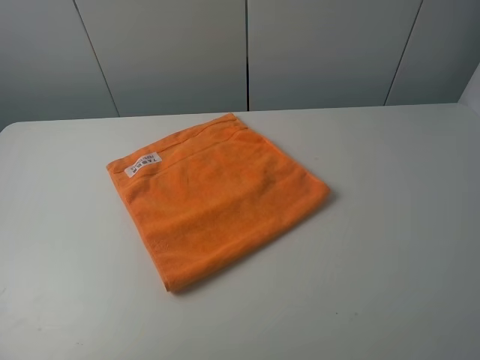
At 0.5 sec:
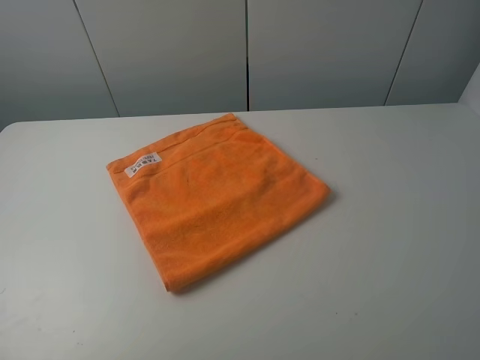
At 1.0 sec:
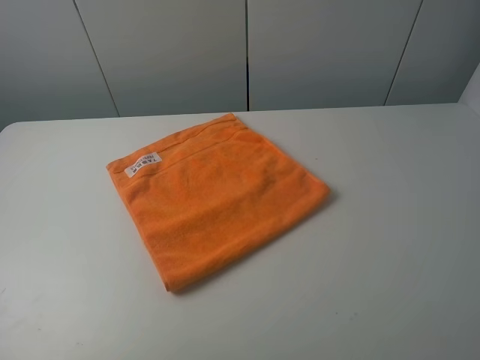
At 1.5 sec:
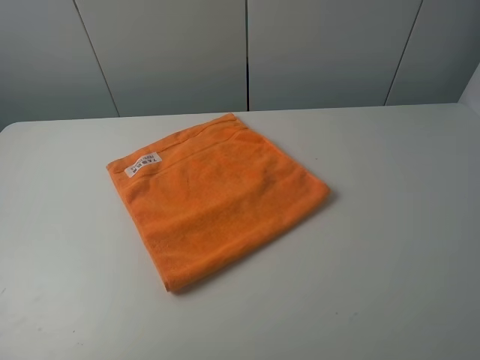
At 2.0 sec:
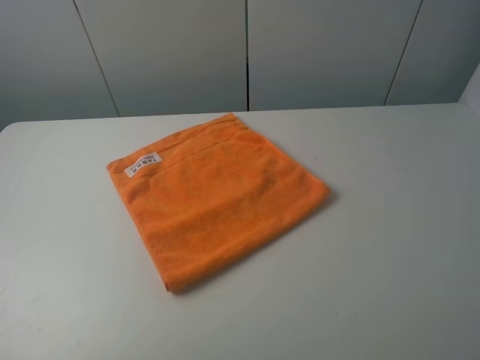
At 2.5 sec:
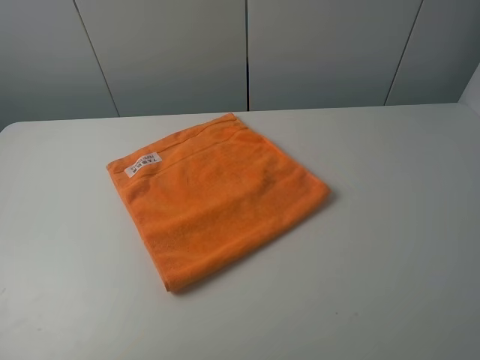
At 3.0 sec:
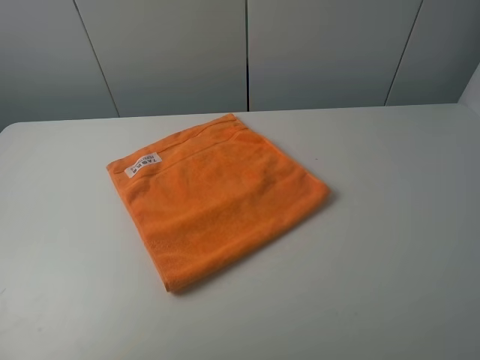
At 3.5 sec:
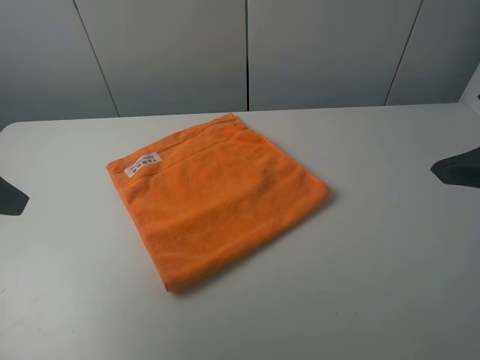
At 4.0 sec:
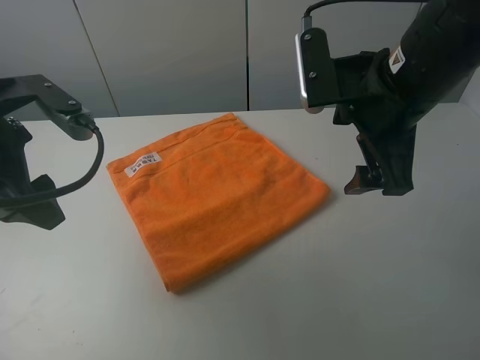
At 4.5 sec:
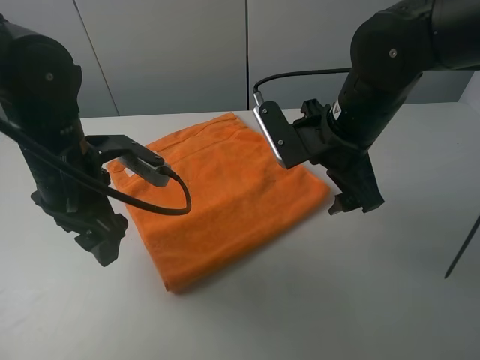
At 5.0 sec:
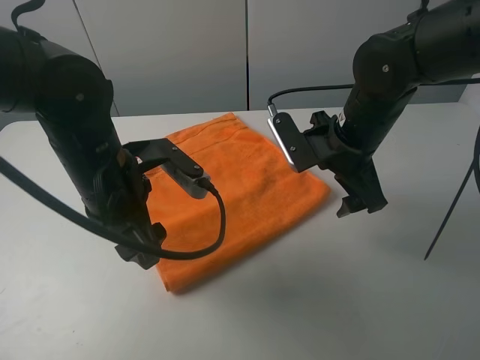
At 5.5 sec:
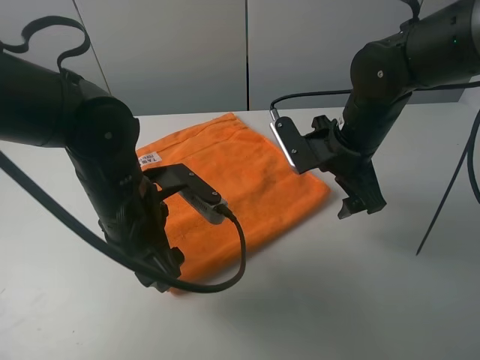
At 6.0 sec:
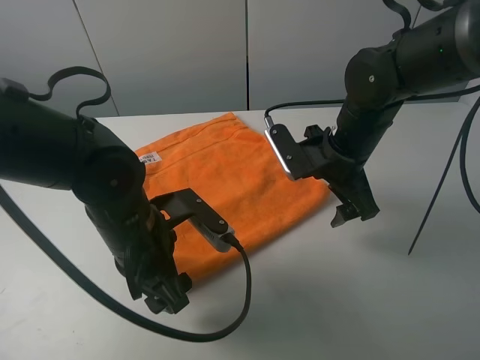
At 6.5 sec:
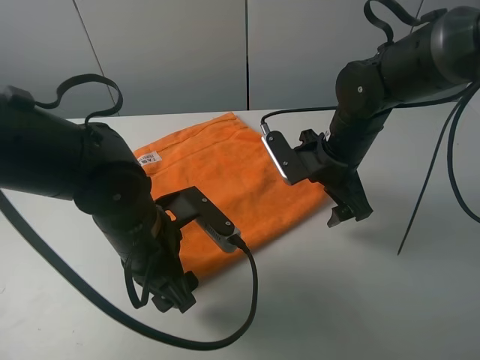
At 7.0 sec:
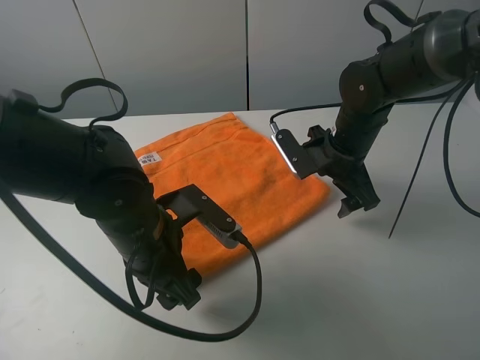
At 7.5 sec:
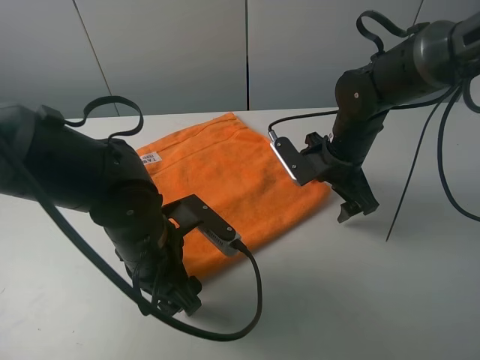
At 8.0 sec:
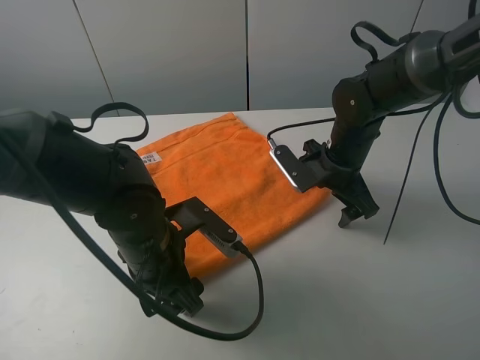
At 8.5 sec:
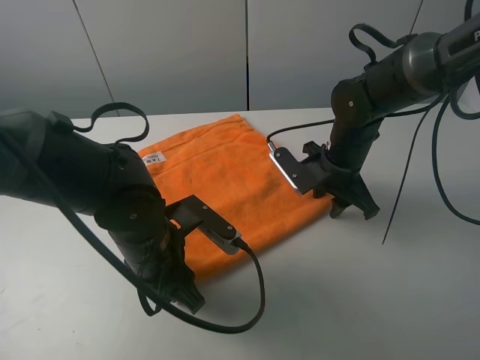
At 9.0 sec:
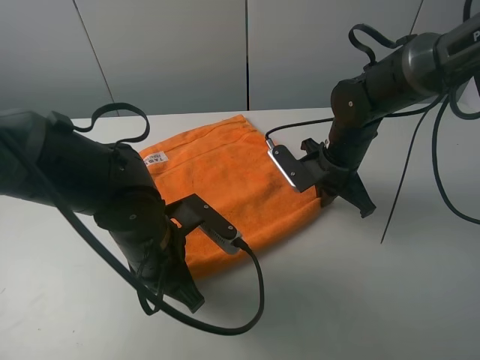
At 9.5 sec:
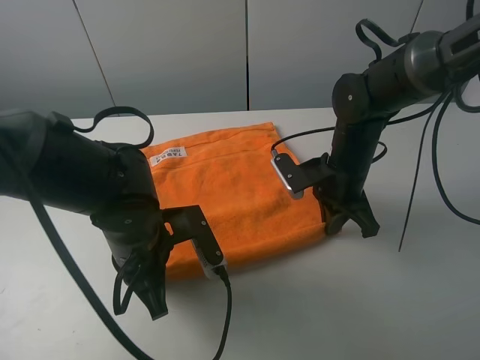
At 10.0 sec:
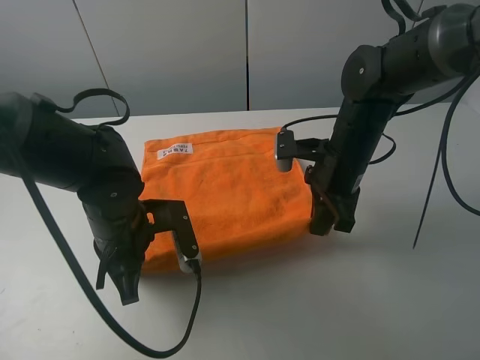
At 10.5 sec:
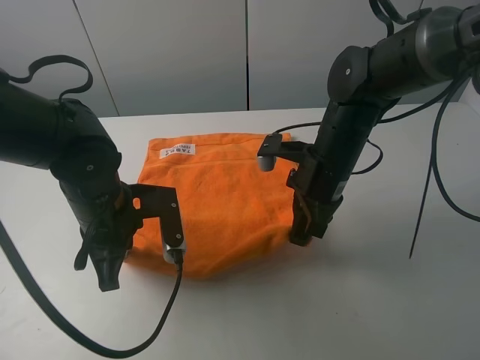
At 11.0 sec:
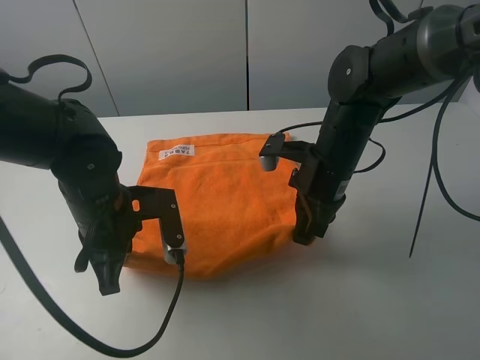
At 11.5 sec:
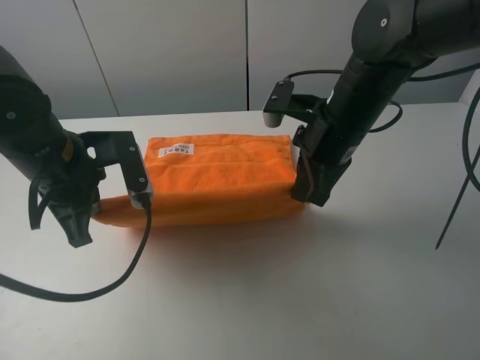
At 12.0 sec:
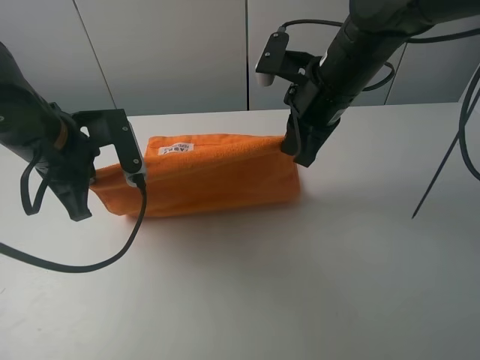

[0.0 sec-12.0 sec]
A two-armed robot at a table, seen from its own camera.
Task of the whole recording: fold the towels on the table.
Step, 0.0 sec to 9.0 sec: Grasp the orange towel with the left gripper.
0.0 sec to 2.0 sec: Both grippers stay about where they are.
2.0 sec to 4.0 sec: The left gripper is displaced forward by roughly 20 cm. The right gripper travels forward and to the left by some 30 cm.
4.0 sec to 6.0 sec: The right gripper goes some 10 cm downward and forward. Meanwhile the left gripper heads downward and to the right, covering some 20 cm.
6.0 sec to 8.0 sec: The right gripper ends up some 5 cm from where it was.
8.0 sec to 10.0 sec: The left gripper ends up roughly 5 cm from where it was, and closes up; the right gripper ends up roughly 5 cm from where it was, and closes up.
10.0 sec to 12.0 sec: The left gripper travels upward and to the left by some 10 cm. The right gripper heads upward, covering about 10 cm.

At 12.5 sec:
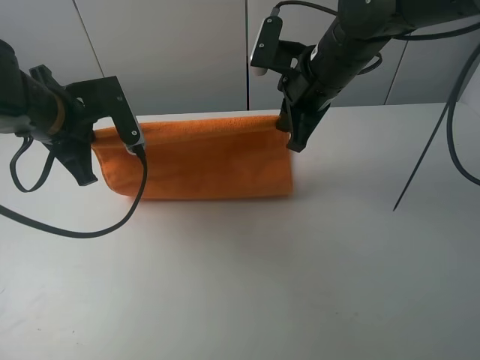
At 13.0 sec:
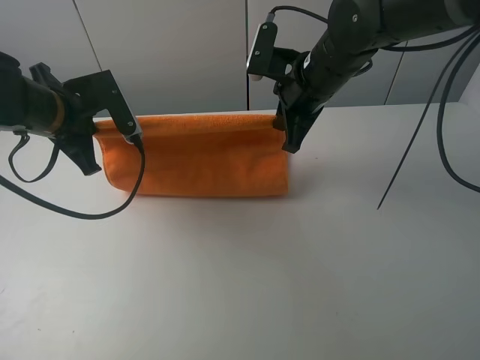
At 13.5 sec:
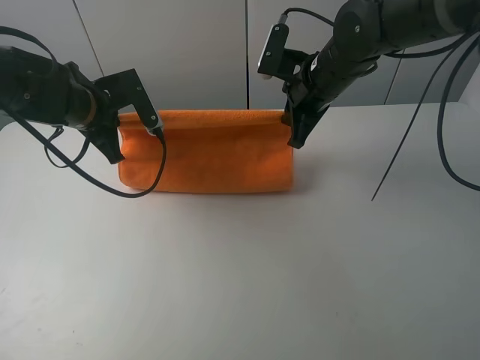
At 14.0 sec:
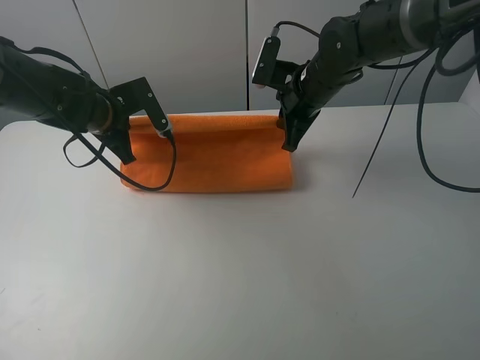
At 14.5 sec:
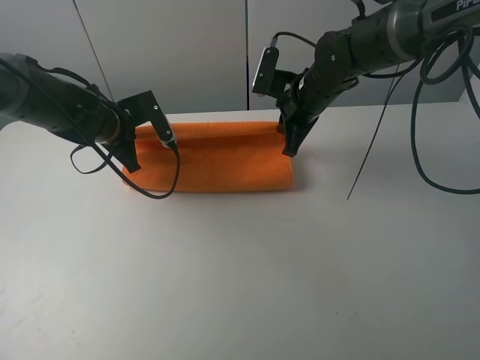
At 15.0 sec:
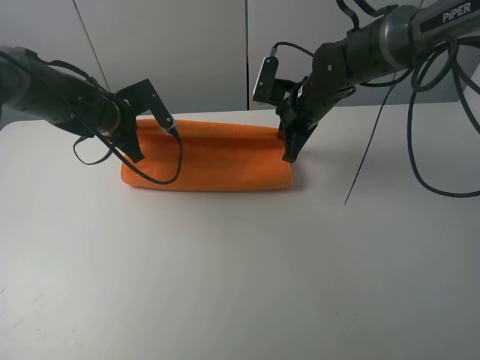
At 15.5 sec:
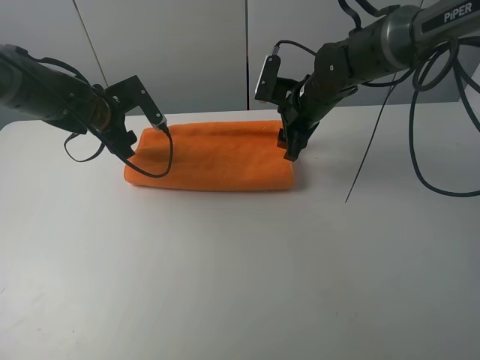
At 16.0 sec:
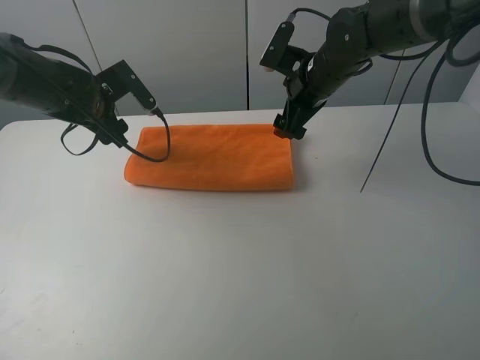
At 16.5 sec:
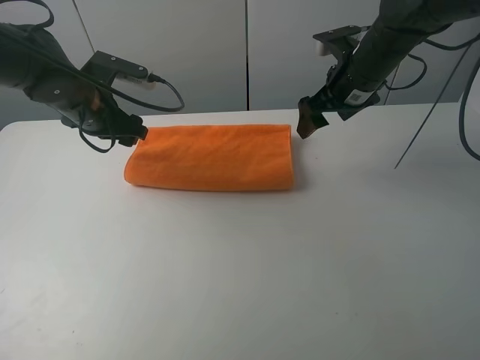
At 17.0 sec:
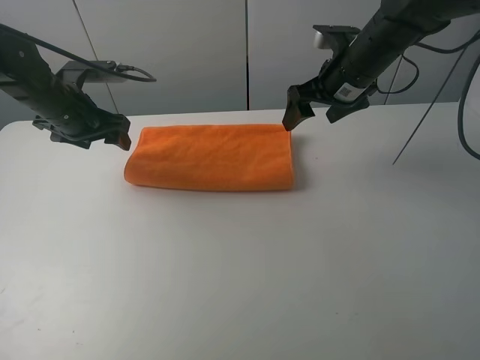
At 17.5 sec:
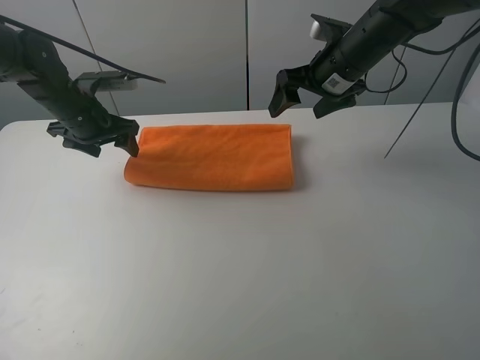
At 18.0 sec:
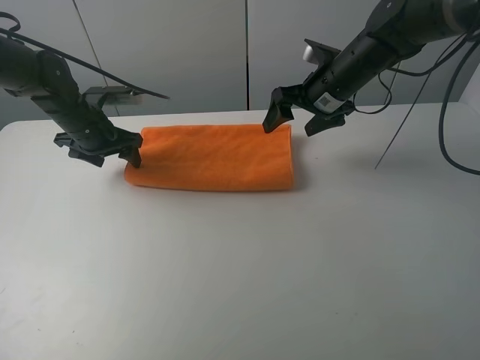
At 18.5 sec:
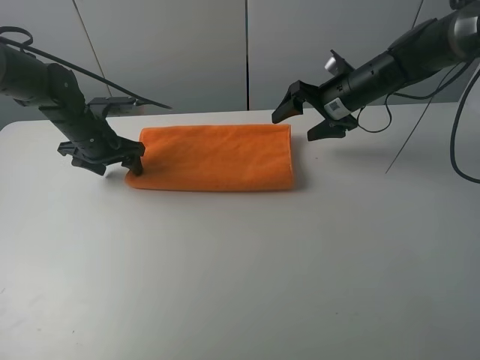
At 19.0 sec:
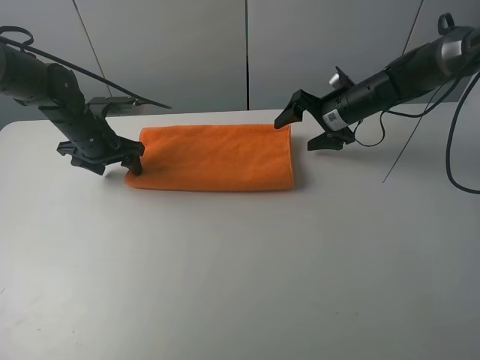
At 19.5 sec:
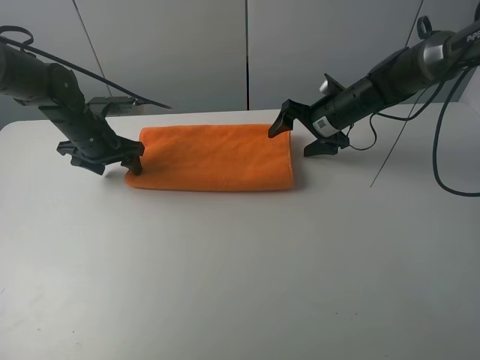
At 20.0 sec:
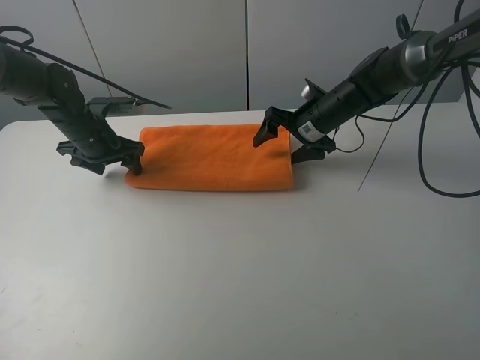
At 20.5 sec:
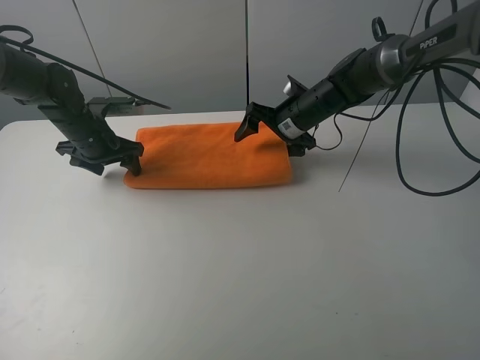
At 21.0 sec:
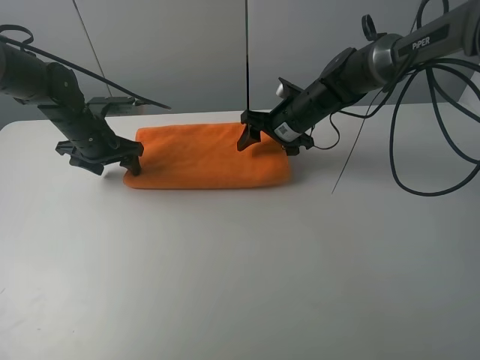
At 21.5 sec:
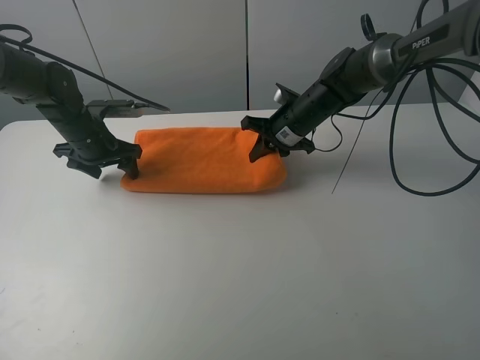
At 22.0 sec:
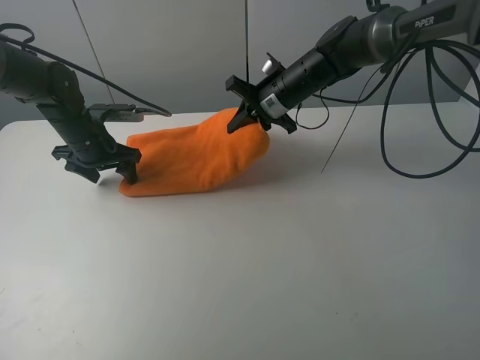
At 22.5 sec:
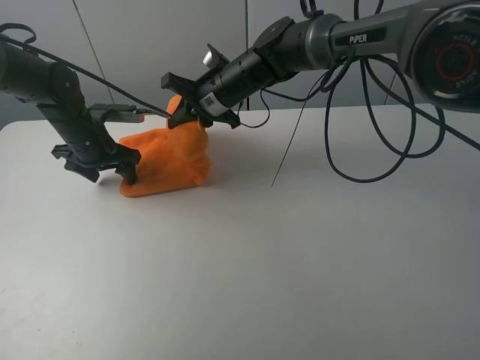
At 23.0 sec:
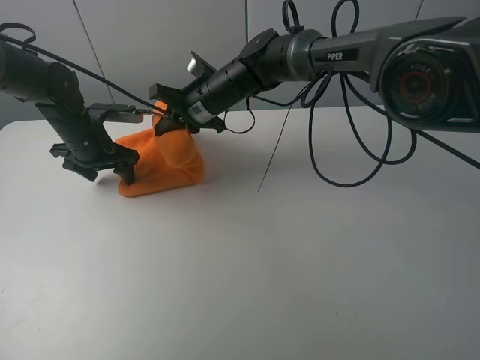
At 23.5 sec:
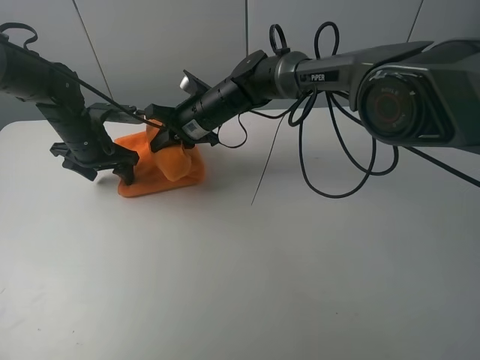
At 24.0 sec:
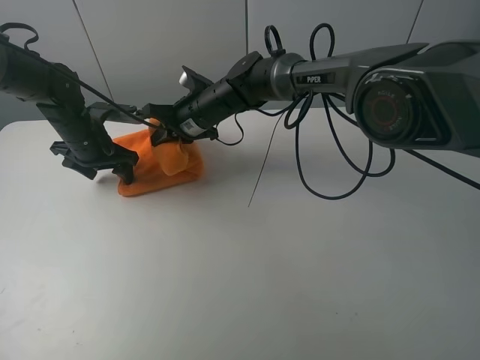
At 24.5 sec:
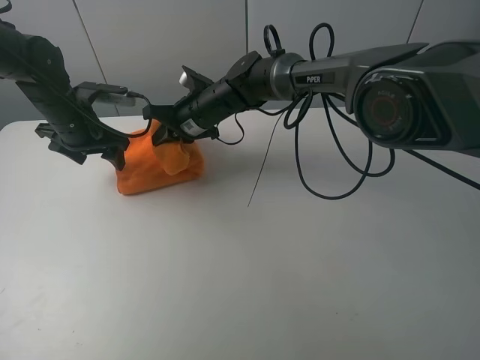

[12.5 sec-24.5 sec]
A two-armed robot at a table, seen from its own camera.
Task of the whole recording: fold the towels on the table.
Step, 12.5 sec to 15.5 sec: Fold the orange towel upwards with the right gripper.
Step, 16.5 sec to 18.5 sec: Press on the orange towel with the left gripper.
12.5 sec to 14.5 sec: The right gripper goes roughly 10 cm downward and forward; the left gripper heads forward and downward, covering some 15 cm.
14.5 sec to 16.5 sec: The left gripper ends up some 5 cm from where it was, and opens up; the right gripper travels to the right by roughly 5 cm, and opens its fingers.
16.5 sec to 18.5 sec: The grippers both shift downward by some 5 cm.
18.5 sec to 20.5 sec: The right gripper is displaced to the left by roughly 10 cm.
20.5 sec to 22.5 sec: The right gripper is displaced to the left and upward by about 15 cm, and closes up.
22.5 sec to 24.5 sec: The right gripper shifts by approximately 5 cm.

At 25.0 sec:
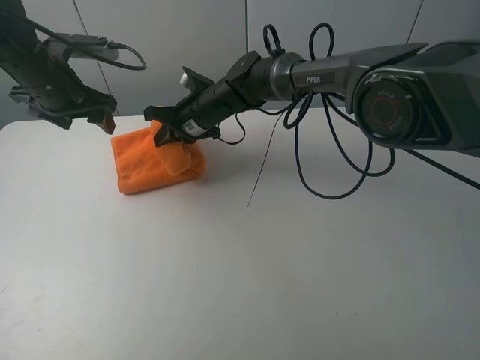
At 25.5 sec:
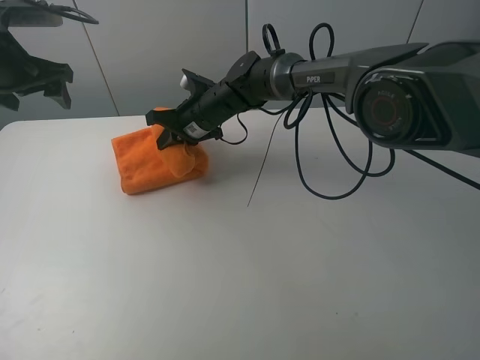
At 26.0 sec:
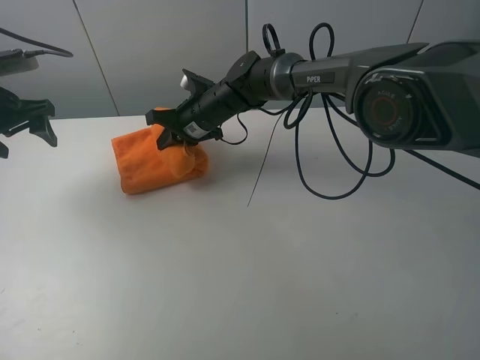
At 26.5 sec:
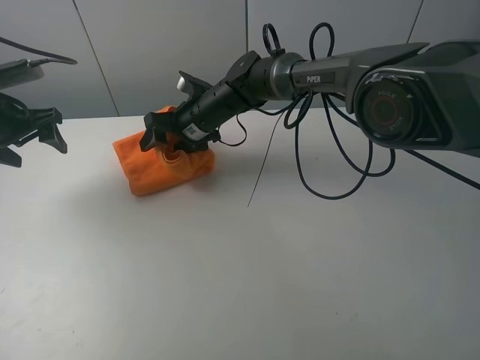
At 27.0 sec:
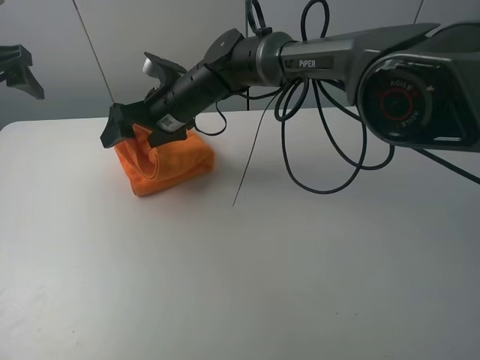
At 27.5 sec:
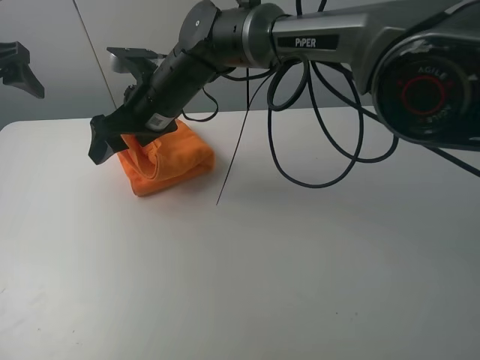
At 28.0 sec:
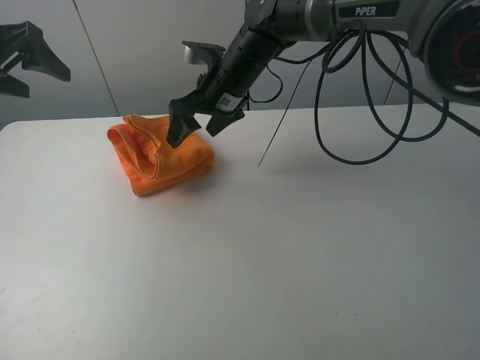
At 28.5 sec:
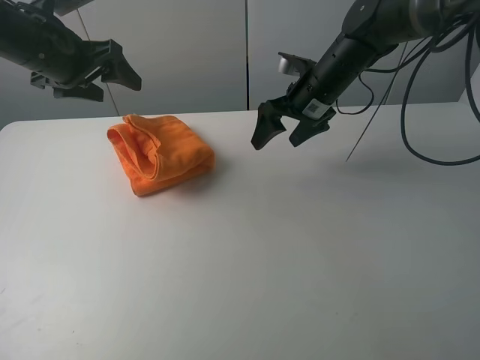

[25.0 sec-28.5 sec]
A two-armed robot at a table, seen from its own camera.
Task of the whole recording: fold the towels on the table.
Step, 25.0 sec to 27.5 sec: Fold the orange towel from right to left with right gripper.
25.0 sec to 27.0 sec: The left gripper heads to the left and upward, covering roughly 10 cm. Meanwhile the right gripper ends up approximately 5 cm from where it was, and opens up.
27.0 sec to 28.5 sec: The right gripper heads to the right, covering about 20 cm. Meanwhile the left gripper moves to the right, roughly 10 cm.
